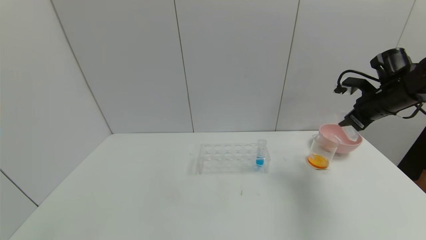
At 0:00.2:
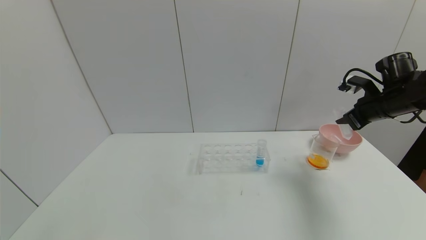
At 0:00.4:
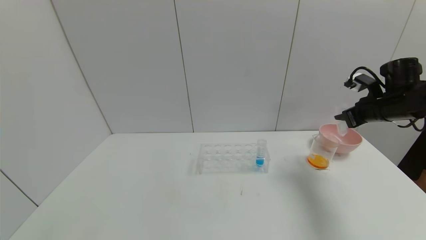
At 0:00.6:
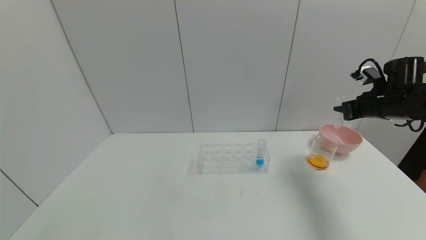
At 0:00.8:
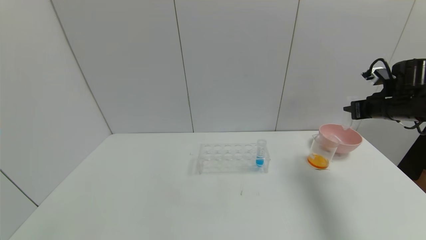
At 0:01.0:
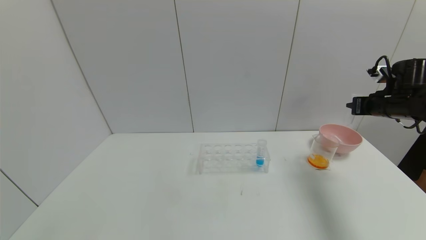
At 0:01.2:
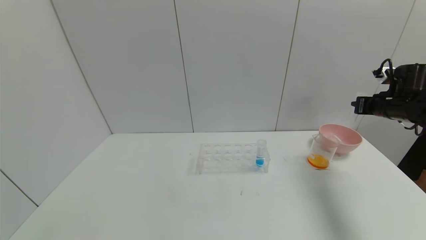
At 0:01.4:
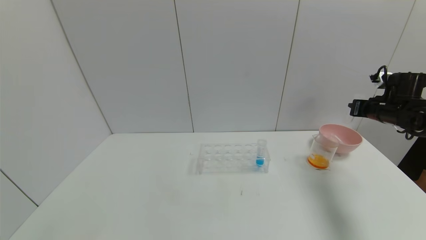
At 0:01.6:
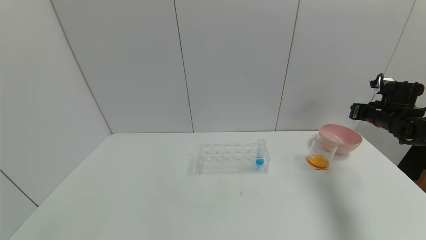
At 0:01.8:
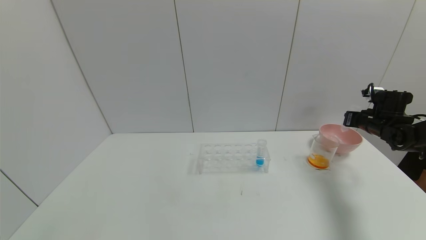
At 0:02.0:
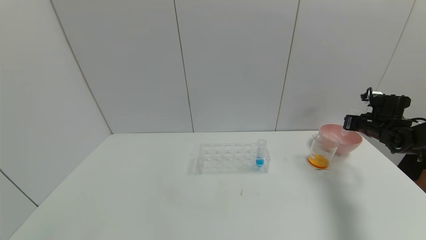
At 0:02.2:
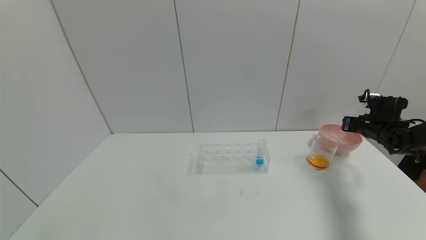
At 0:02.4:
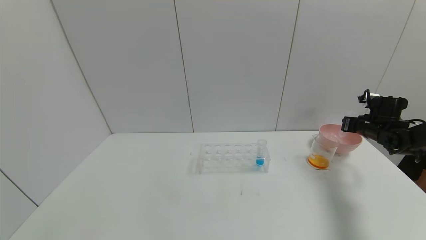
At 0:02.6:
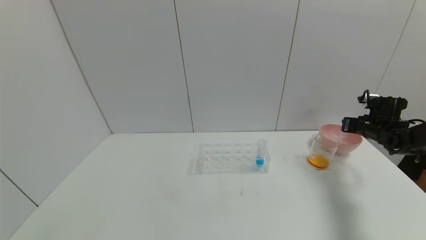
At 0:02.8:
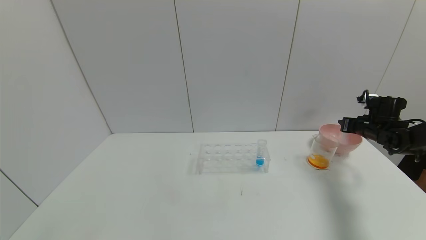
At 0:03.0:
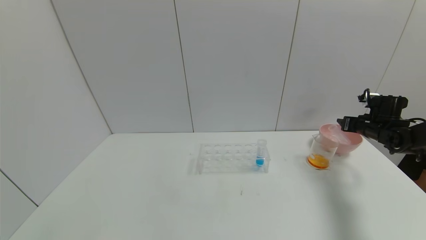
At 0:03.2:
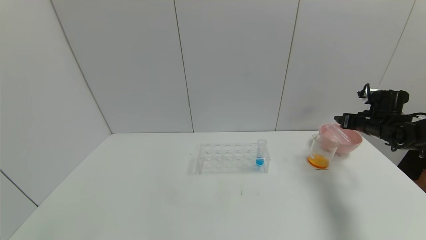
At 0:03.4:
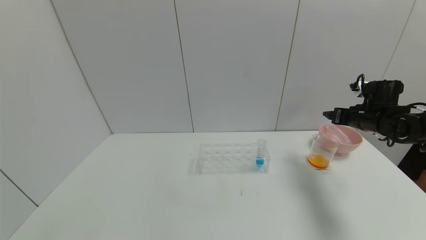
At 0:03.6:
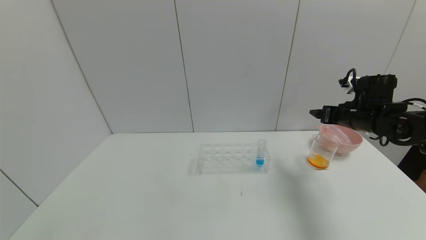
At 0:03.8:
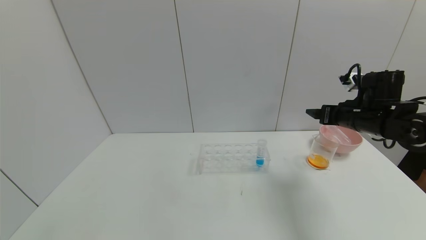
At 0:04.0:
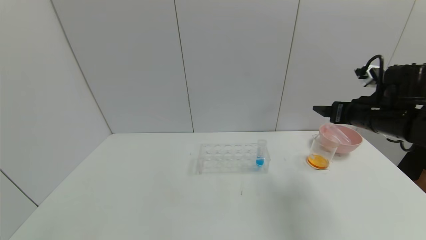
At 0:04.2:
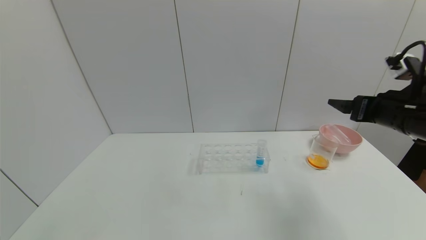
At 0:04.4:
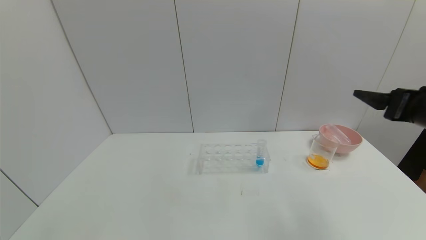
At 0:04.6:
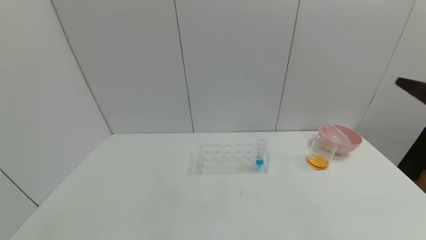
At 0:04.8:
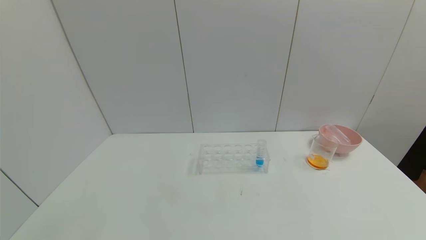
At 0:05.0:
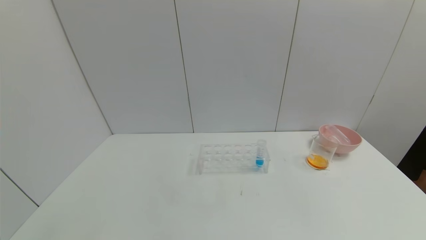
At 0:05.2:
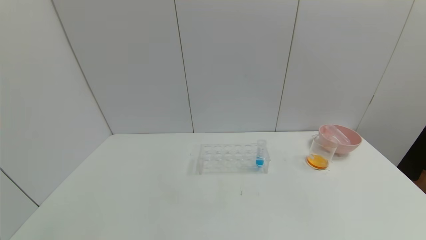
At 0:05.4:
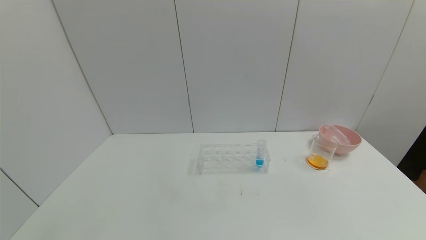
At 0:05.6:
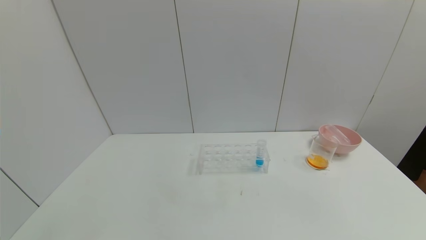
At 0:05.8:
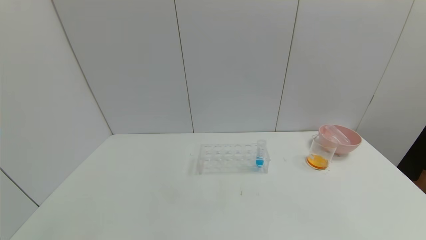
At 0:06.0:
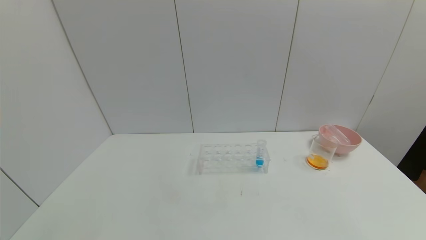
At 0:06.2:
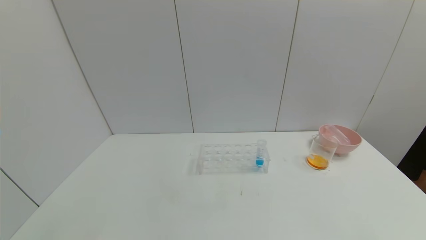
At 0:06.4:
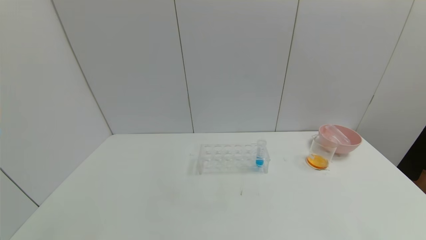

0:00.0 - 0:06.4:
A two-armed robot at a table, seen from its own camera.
Task of the whole recording: pick up the test tube with yellow pigment and the test tube with red pigment by grippers and pour them into the beaker.
Step, 0:00.0 - 0:03.0: Place the test tube into the pink bowl with the right gripper.
0:00.0 - 0:01.6: The right gripper travels downward and to the right by roughly 10 cm.
0:01.6 - 0:03.2: The right gripper opens its fingers.
0:03.2 - 0:04.8: The right gripper travels backward and upward by roughly 35 cm.

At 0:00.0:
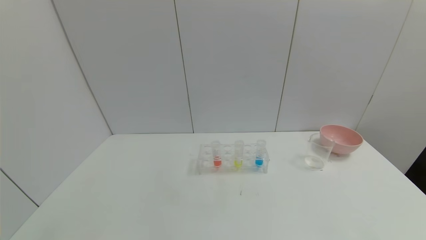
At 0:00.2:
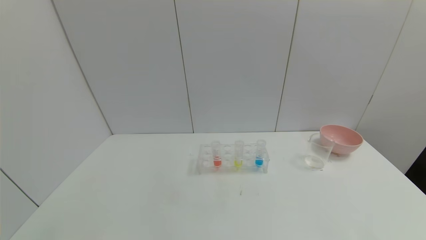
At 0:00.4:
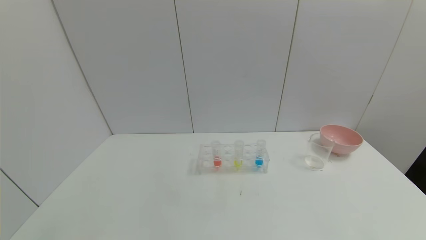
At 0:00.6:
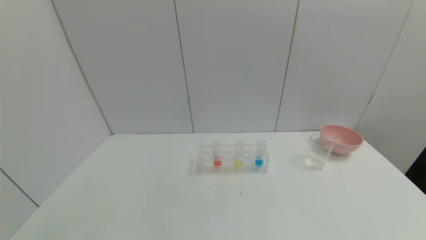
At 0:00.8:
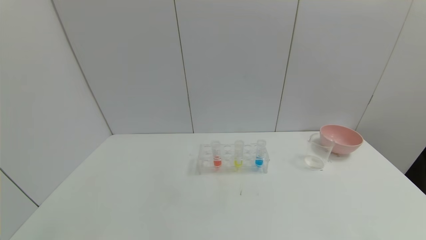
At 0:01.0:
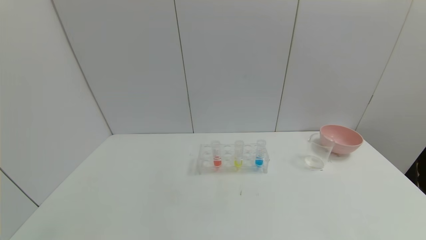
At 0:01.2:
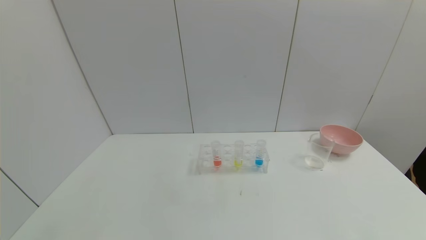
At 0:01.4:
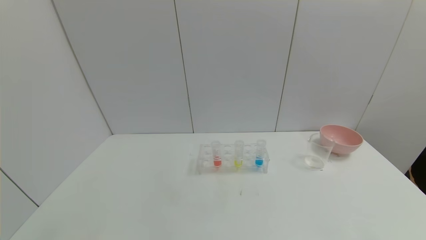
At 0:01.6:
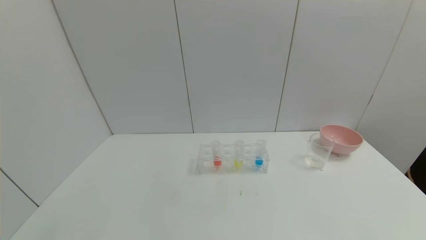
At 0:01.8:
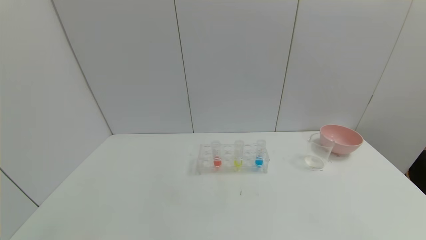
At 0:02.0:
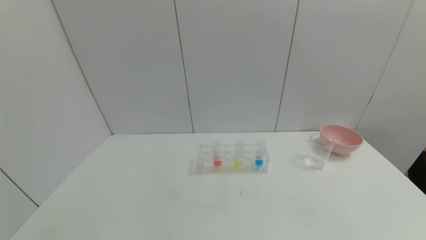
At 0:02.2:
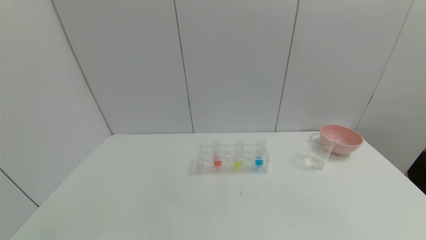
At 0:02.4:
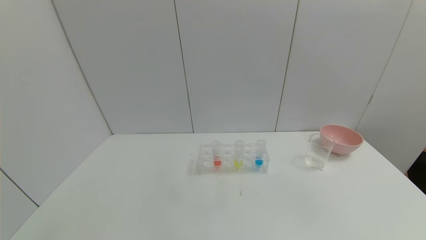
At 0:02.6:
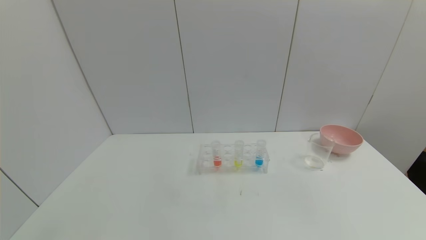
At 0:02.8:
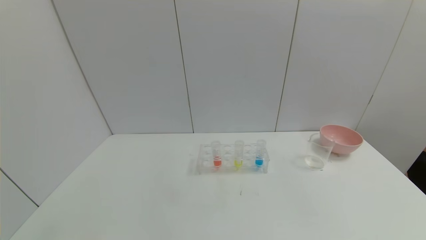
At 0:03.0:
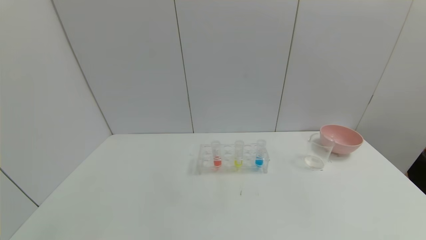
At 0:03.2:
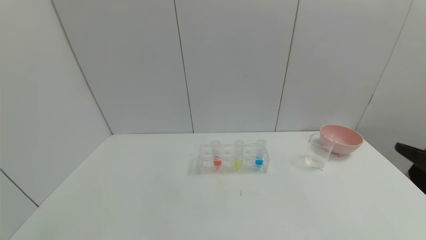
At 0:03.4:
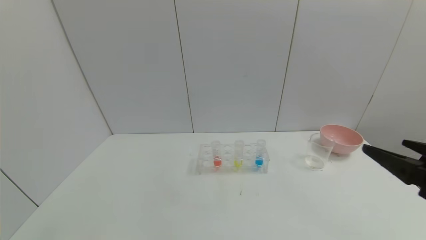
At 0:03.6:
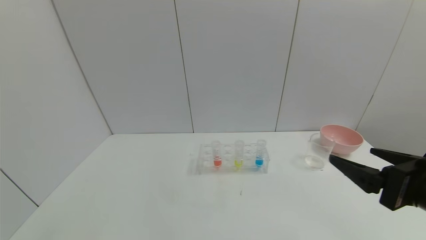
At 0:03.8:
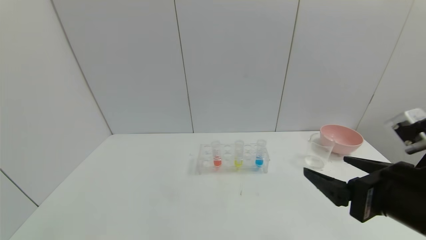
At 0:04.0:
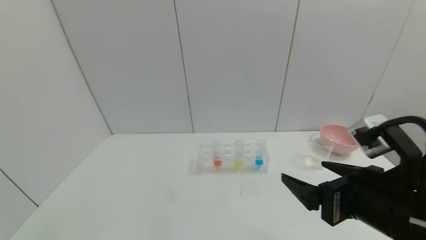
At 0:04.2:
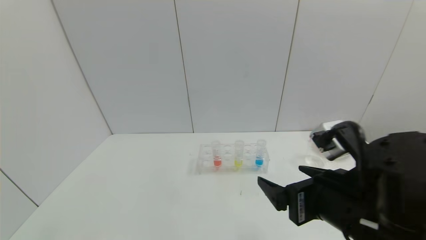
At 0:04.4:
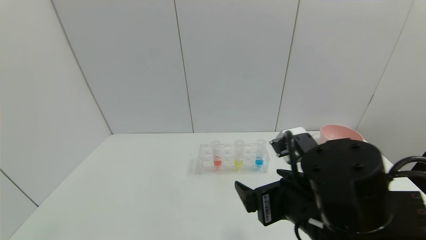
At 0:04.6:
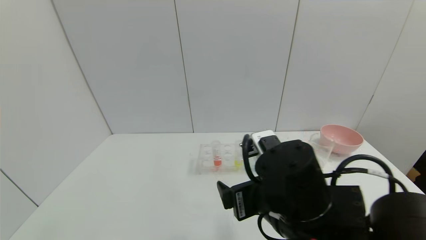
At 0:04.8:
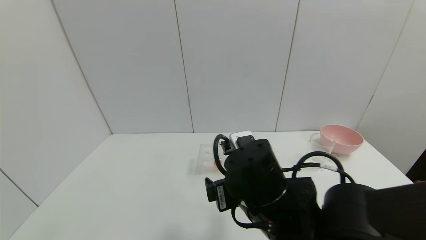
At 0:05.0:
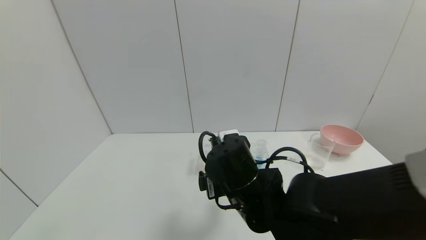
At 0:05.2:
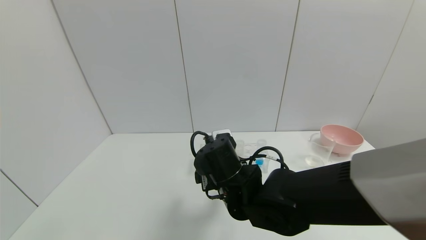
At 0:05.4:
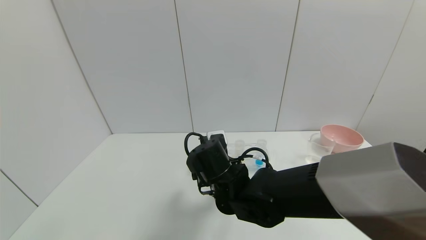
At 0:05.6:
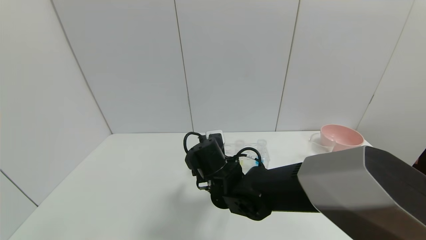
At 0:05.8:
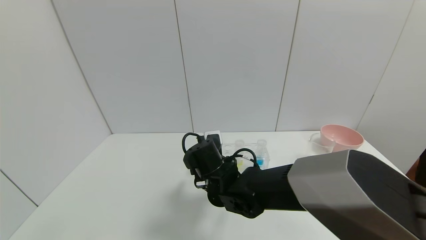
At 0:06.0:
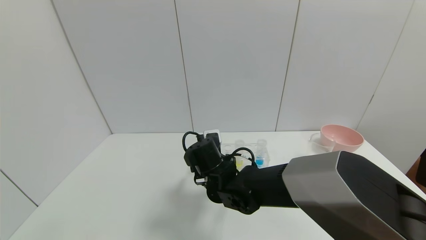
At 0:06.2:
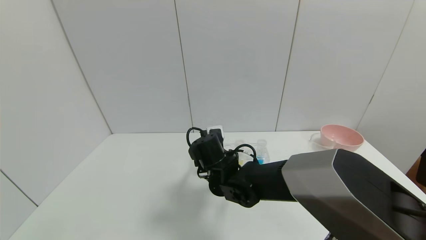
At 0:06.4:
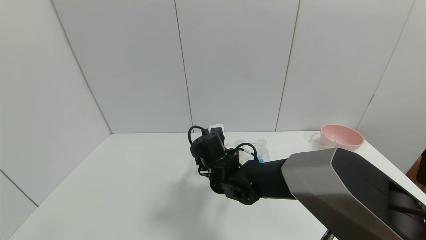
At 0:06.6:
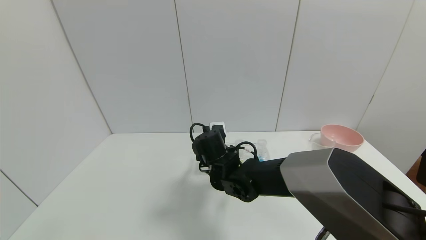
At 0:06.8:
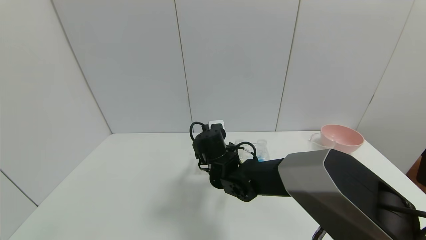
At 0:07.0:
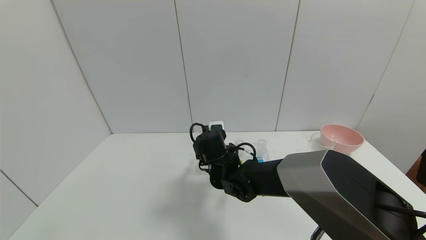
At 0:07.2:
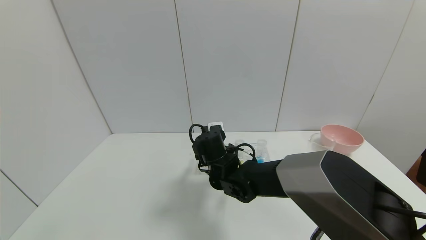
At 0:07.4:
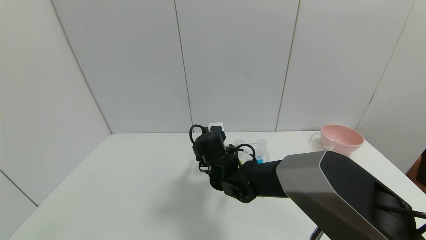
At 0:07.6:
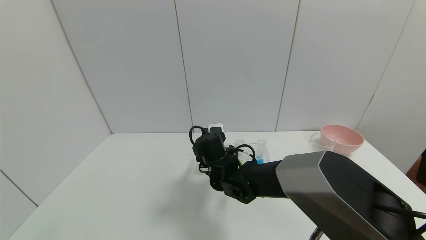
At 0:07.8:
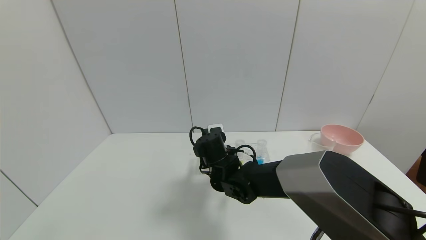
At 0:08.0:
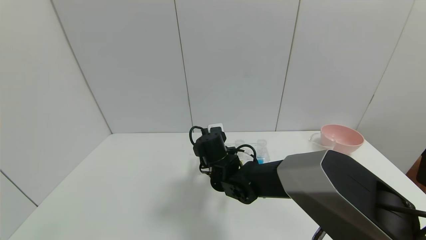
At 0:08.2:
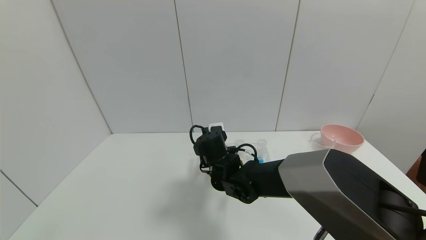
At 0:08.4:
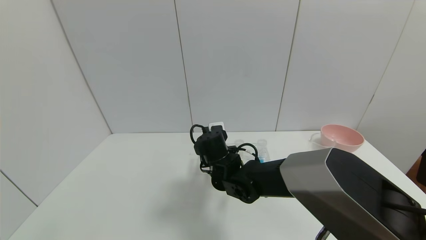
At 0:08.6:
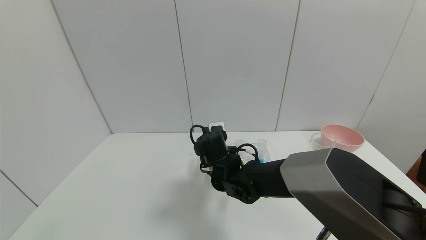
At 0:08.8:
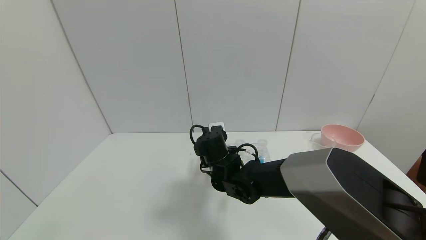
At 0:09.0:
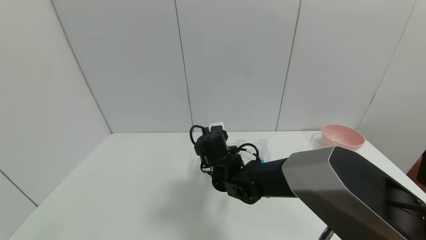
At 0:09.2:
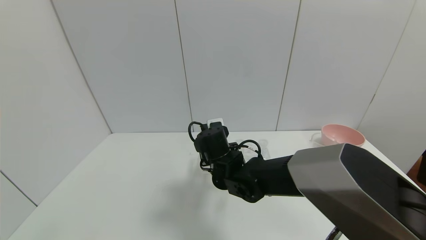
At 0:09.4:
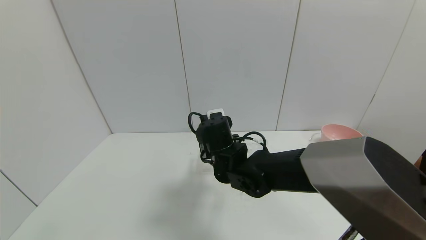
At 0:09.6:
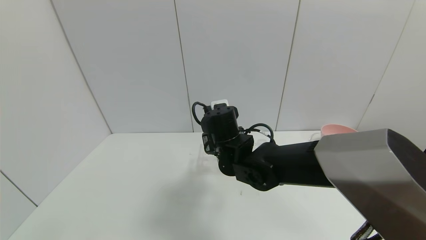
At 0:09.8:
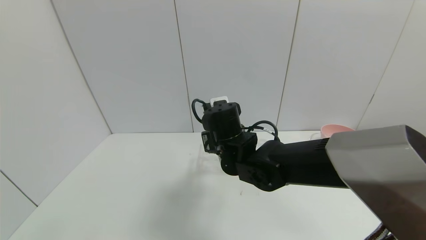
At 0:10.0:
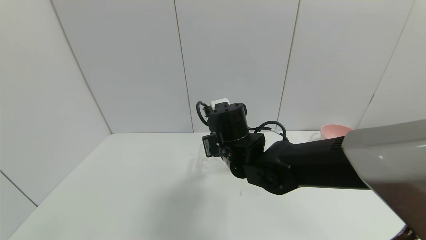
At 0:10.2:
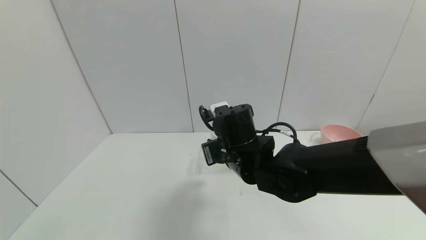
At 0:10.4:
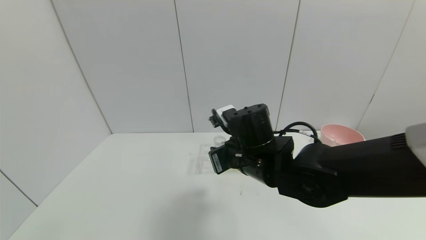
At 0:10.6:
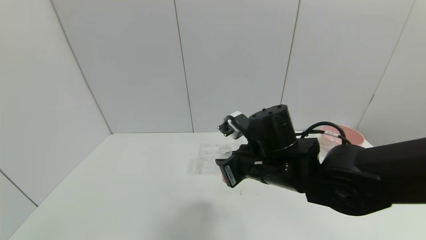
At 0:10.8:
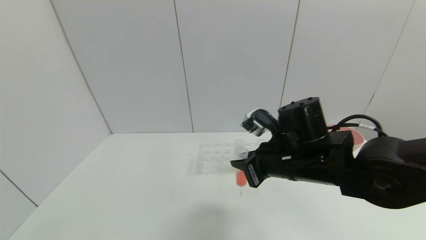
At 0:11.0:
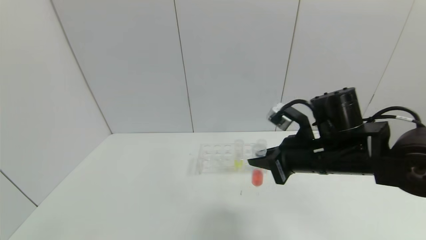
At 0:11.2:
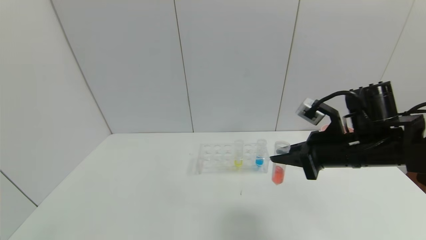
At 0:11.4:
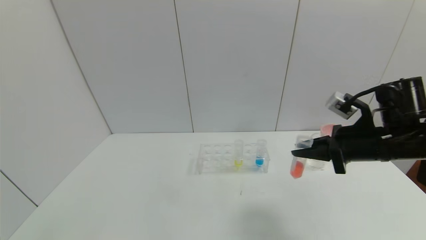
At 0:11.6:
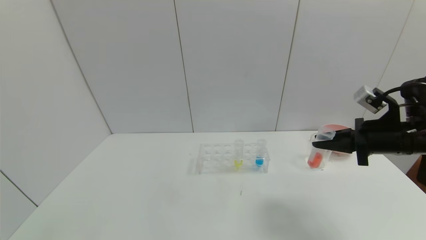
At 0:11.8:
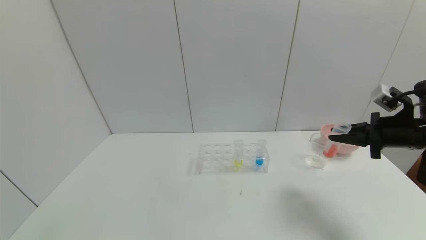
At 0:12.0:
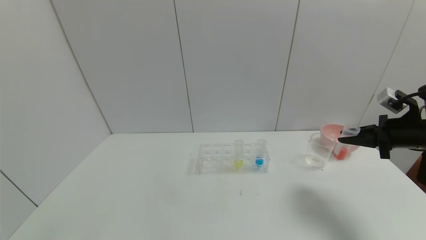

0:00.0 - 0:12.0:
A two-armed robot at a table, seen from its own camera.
Task of the whole recording: pick up the test tube with yellow pigment and the test tube with red pigment by grippers and pour them into the beaker.
Step, 0:00.0 - 0:08.4: Grasp the red reagent with the right gripper.
0:00.0 - 0:01.6: Both grippers stay put.
0:03.0 - 0:04.4: The right gripper is displaced to the left by roughly 25 cm.
0:04.4 - 0:06.0: The right gripper shifts about 25 cm forward, to the left and downward.
0:06.0 - 0:07.6: The grippers stay close to where they were, moving slightly.
0:07.6 - 0:09.0: The right gripper closes its fingers.
0:09.0 - 0:10.4: The right gripper moves upward, backward and to the right, about 10 cm.
0:10.4 - 0:12.0: The right gripper moves to the right, approximately 35 cm.
